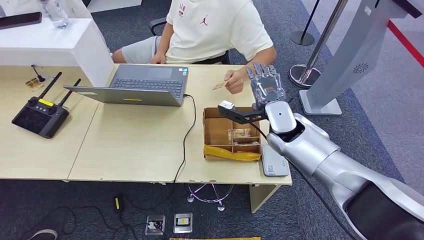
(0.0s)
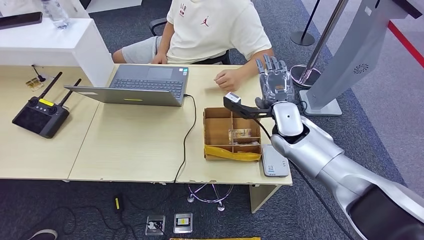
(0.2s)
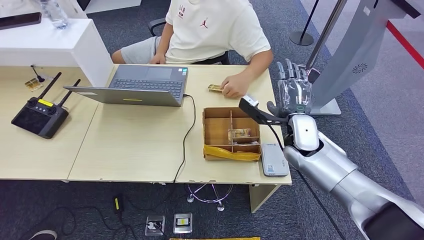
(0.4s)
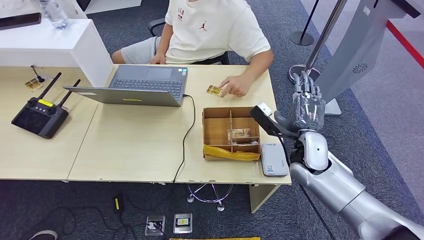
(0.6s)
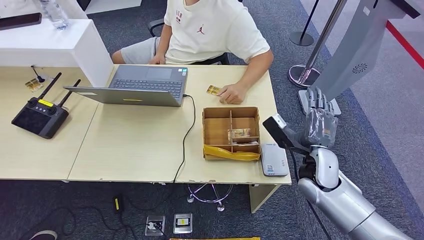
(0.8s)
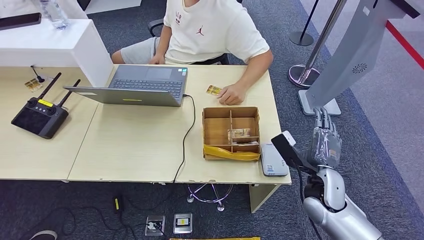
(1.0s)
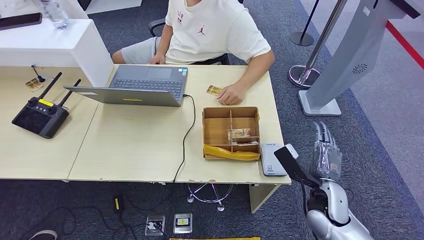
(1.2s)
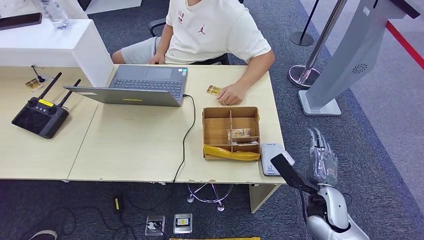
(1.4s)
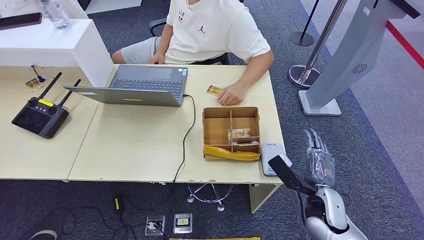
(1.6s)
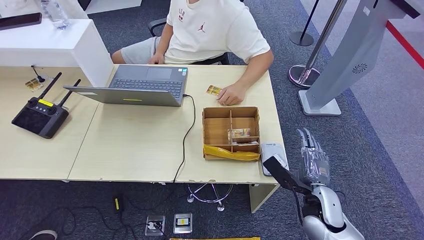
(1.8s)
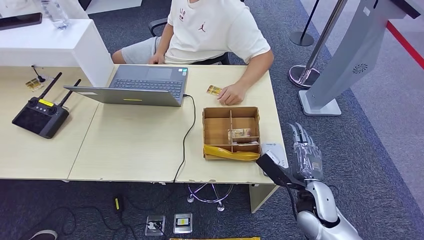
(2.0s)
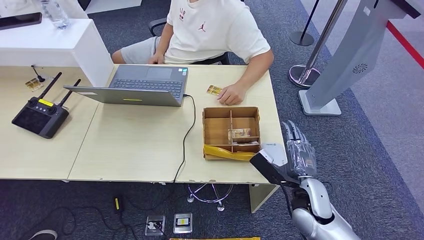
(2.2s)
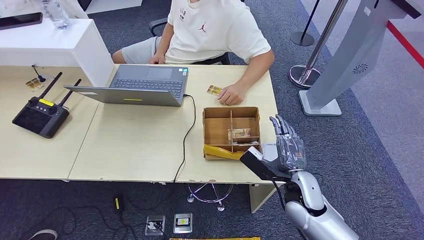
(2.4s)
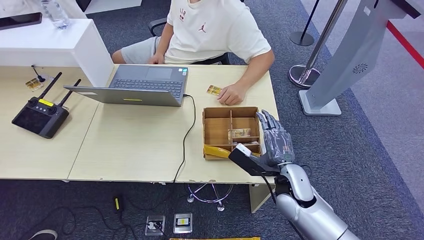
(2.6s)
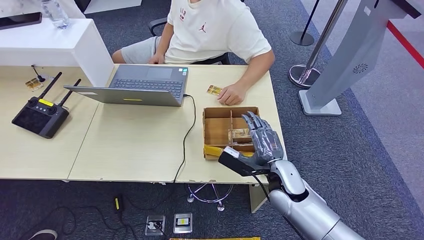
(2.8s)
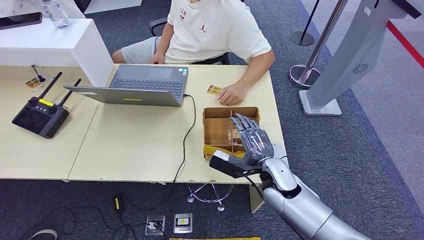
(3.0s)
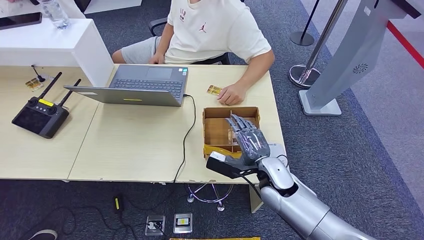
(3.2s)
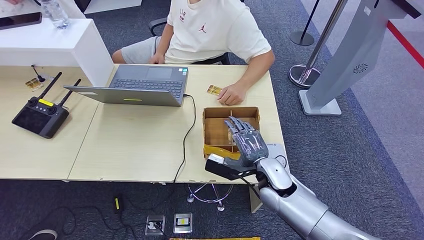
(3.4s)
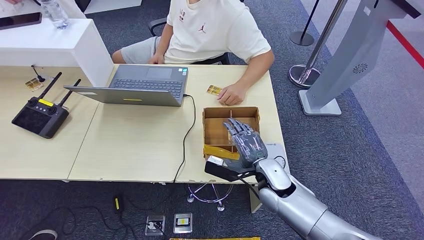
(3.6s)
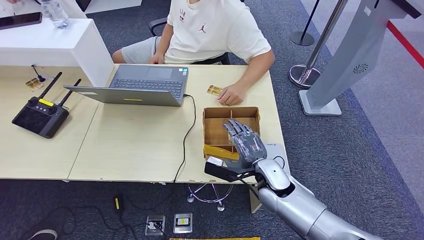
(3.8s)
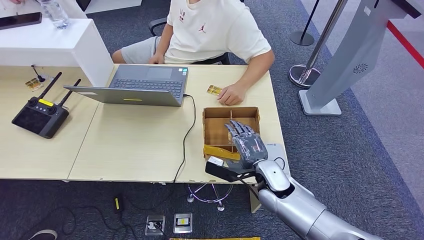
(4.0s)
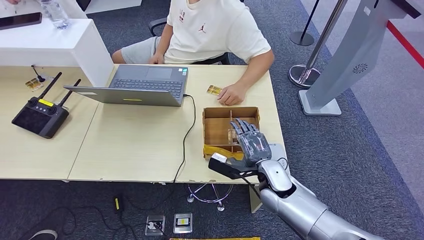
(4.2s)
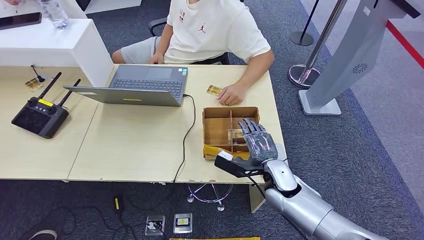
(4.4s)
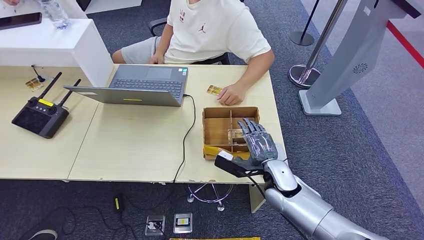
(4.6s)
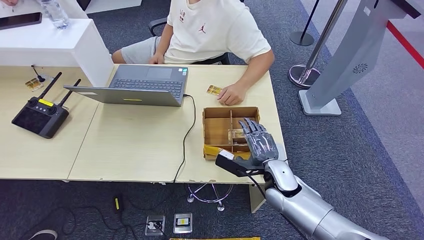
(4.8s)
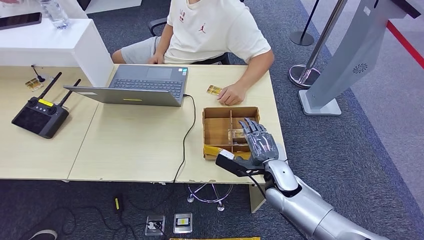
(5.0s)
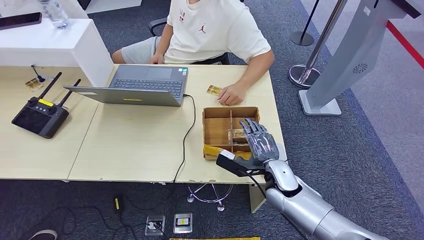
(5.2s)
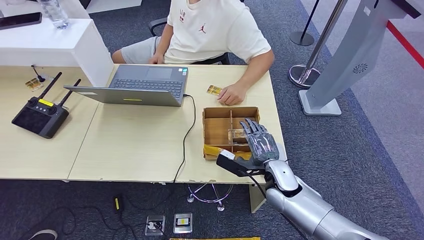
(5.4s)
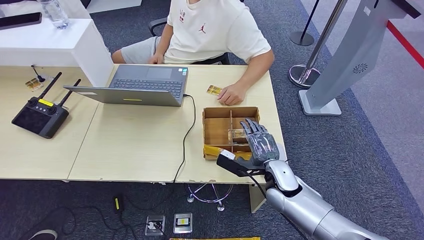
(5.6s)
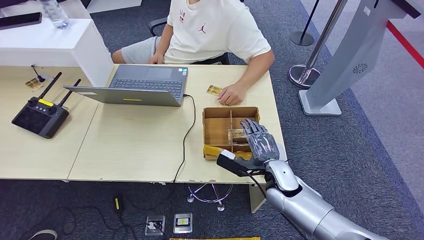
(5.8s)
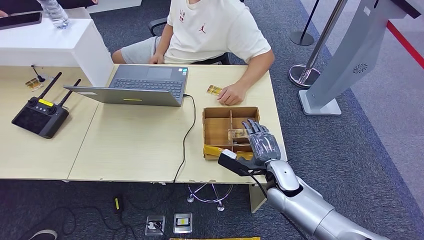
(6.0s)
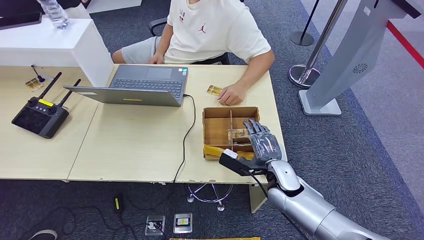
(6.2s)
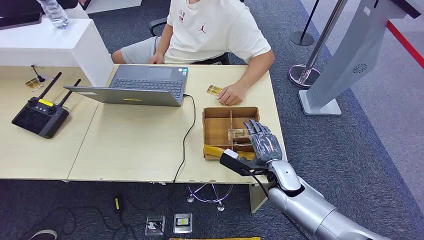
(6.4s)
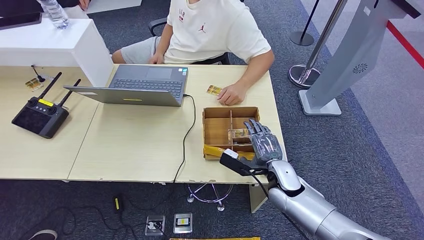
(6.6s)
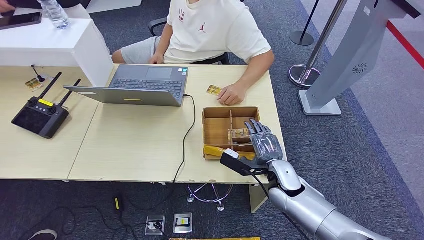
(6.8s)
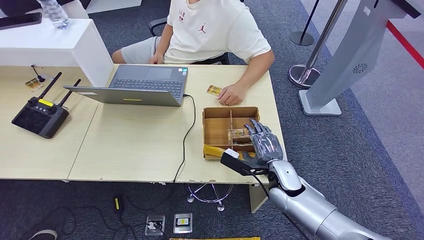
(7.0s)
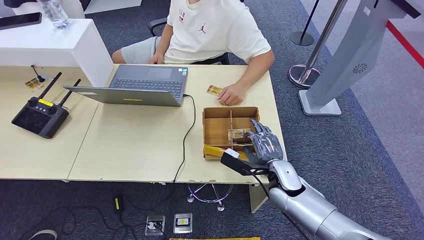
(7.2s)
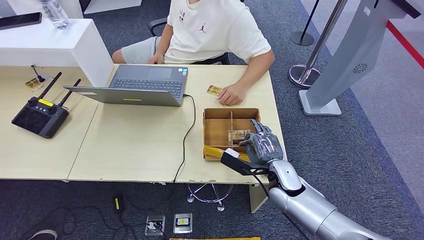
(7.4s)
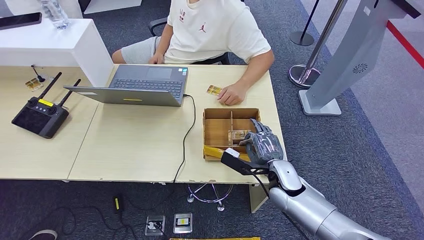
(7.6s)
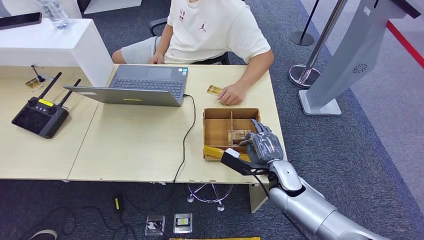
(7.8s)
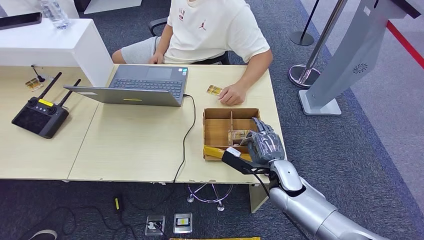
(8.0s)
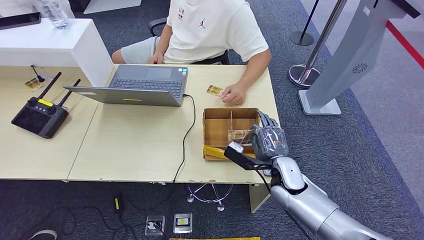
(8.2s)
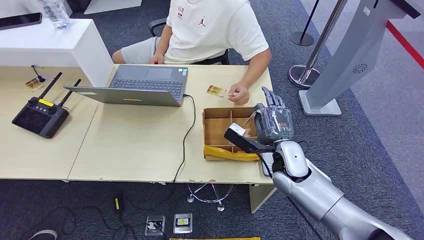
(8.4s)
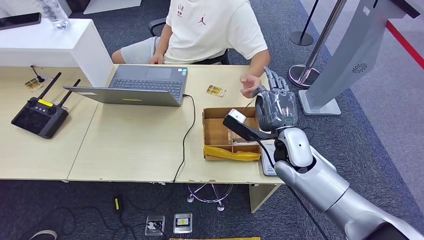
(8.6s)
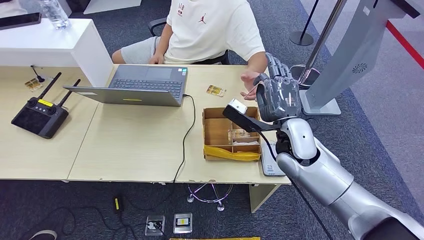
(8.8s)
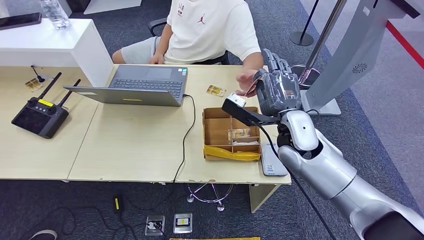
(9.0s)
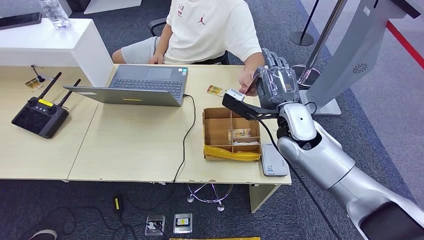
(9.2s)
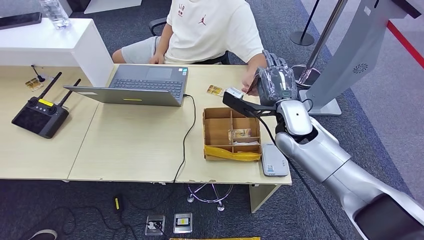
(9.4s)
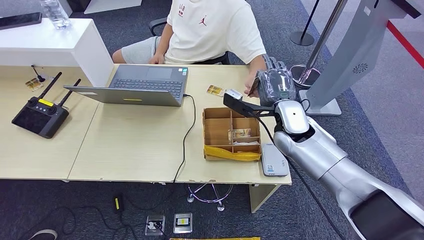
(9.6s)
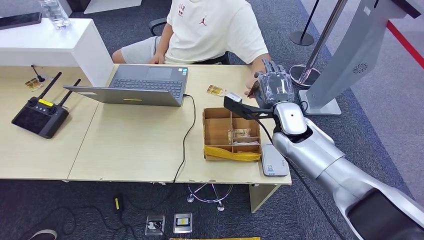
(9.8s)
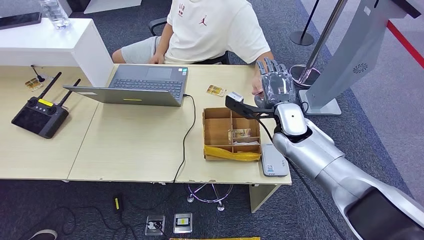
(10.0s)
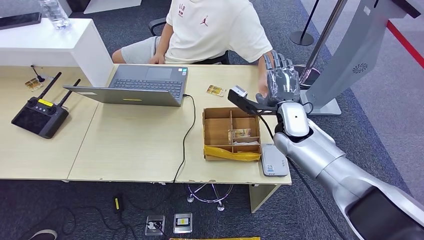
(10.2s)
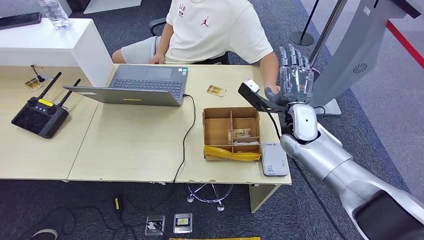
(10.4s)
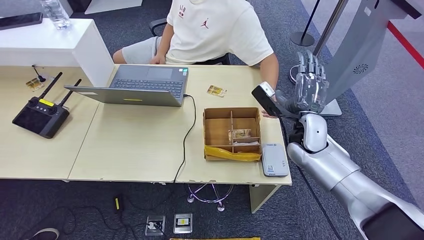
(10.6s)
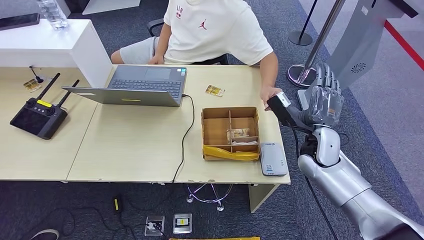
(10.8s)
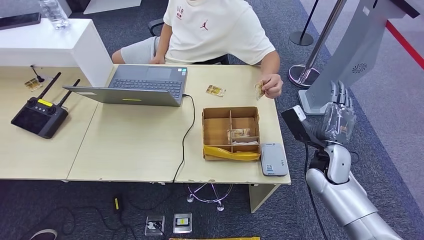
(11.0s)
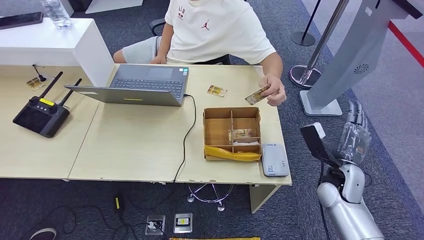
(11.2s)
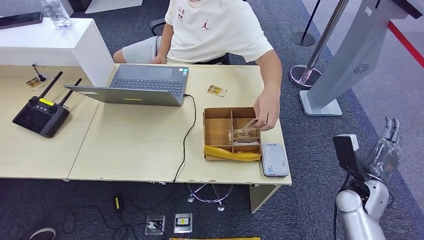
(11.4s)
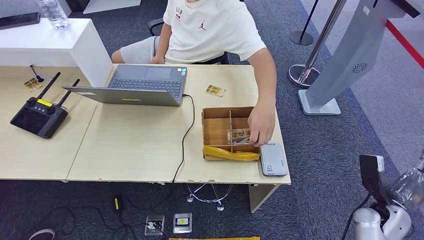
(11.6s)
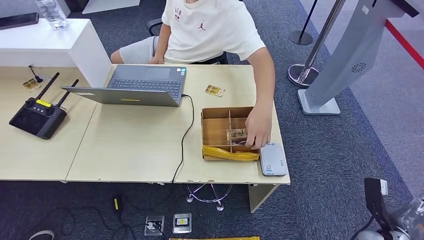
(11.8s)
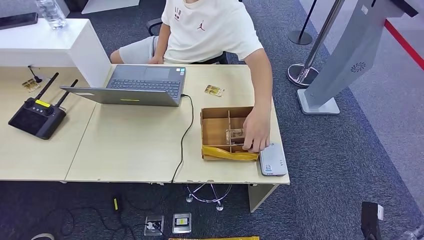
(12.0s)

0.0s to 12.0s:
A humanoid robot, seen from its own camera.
Step, 0.2s to 8.2s: Pick up the room key from the key card box.
Step, 8.4s to 11.8s: Hand the room key to the person.
0.0s to 1.6s: The right hand goes about 25 cm backward, downward and to the right.
1.6s to 3.0s: The right hand shifts some 15 cm to the left and forward.
3.0s to 4.4s: The hands make only small movements.
4.4s to 6.0s: Neither hand changes place.
6.0s to 7.6s: The two hands keep their place.
7.6s to 9.0s: The right hand heads upward, covering some 15 cm.
9.0s to 10.4s: The right hand ends up roughly 5 cm from where it was.
10.4s to 12.0s: The right hand moves backward, downward and to the right, roughly 40 cm.
